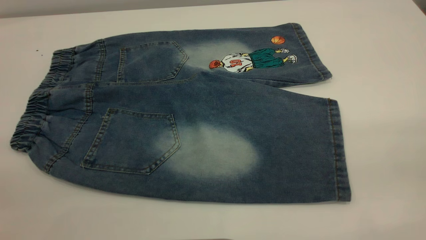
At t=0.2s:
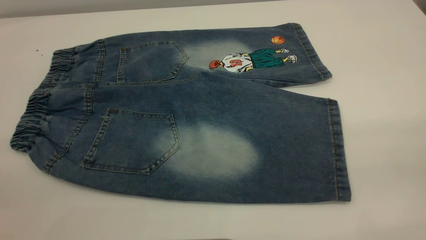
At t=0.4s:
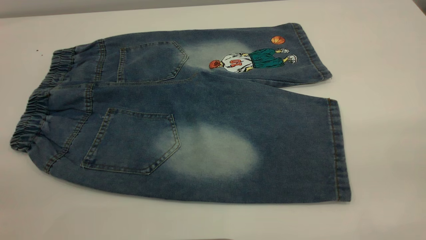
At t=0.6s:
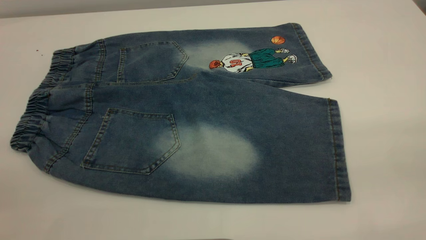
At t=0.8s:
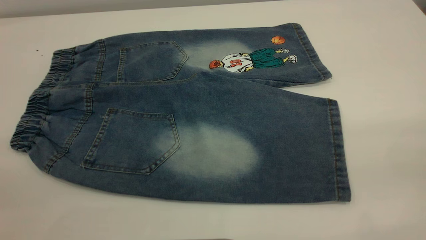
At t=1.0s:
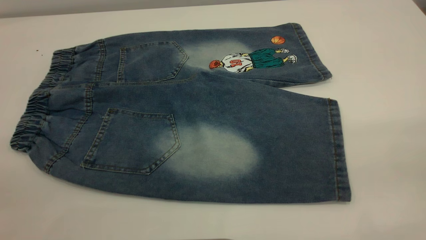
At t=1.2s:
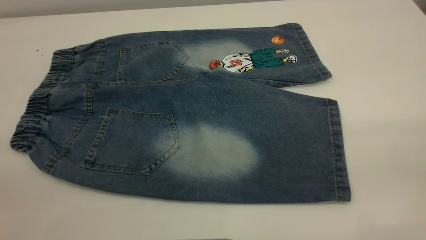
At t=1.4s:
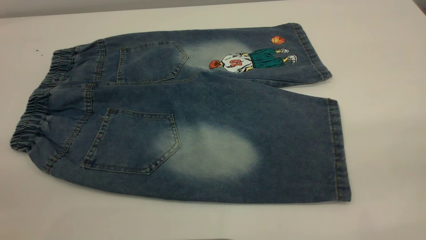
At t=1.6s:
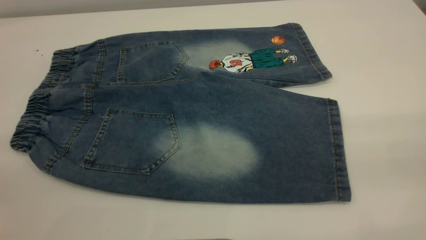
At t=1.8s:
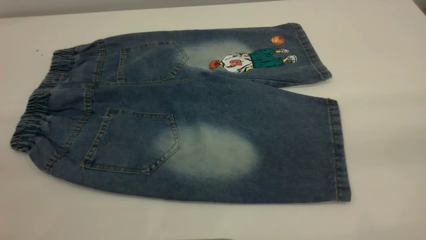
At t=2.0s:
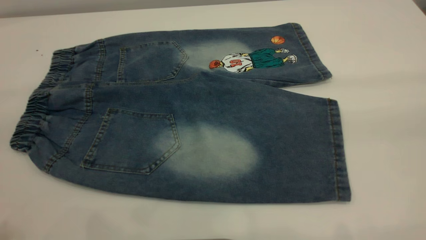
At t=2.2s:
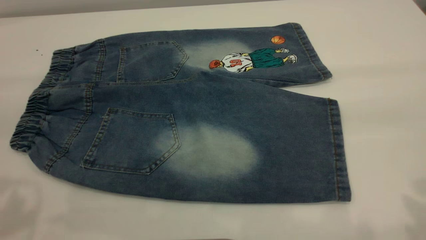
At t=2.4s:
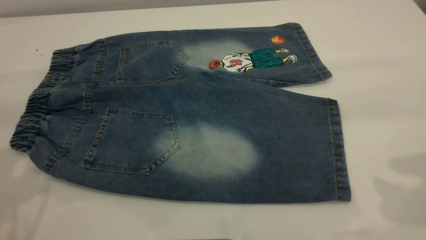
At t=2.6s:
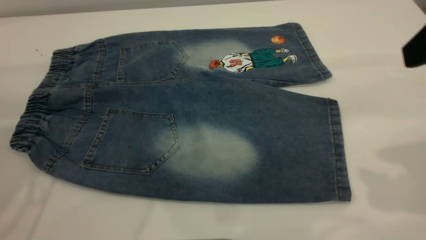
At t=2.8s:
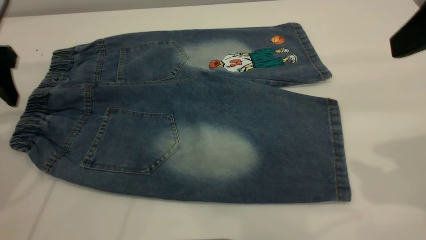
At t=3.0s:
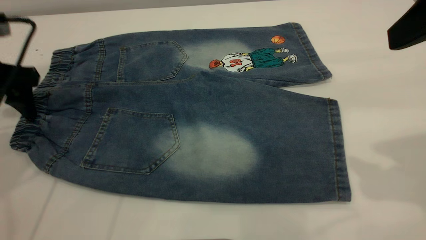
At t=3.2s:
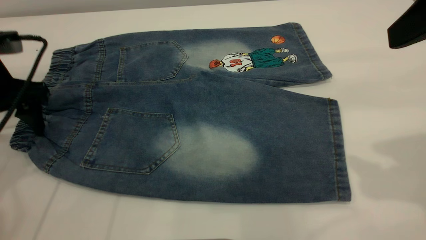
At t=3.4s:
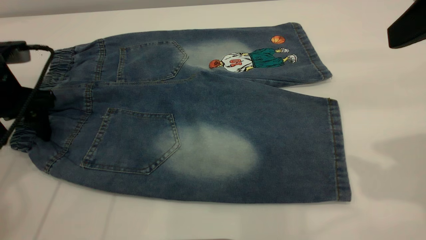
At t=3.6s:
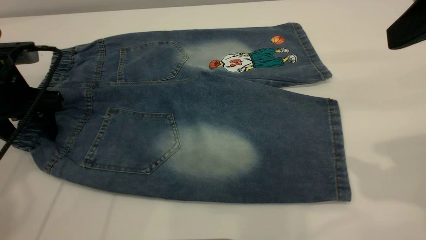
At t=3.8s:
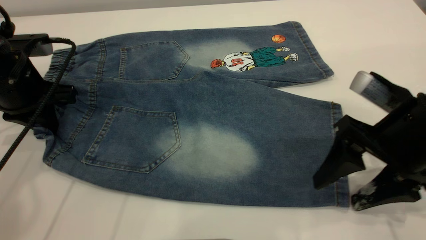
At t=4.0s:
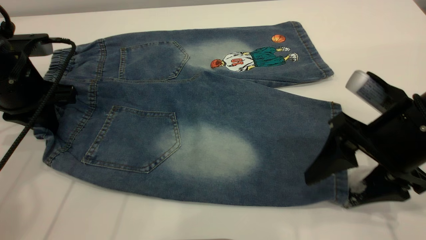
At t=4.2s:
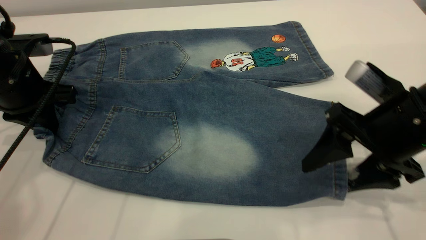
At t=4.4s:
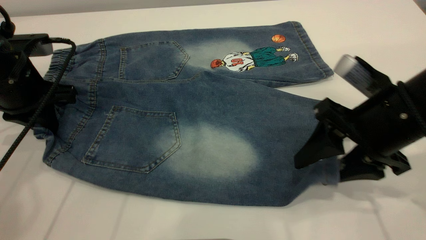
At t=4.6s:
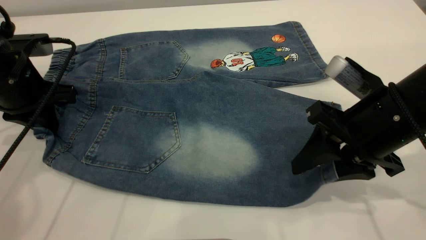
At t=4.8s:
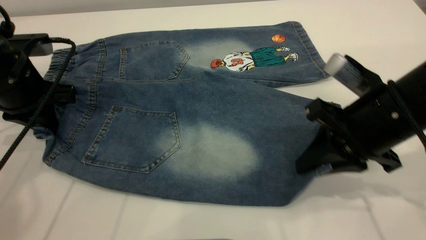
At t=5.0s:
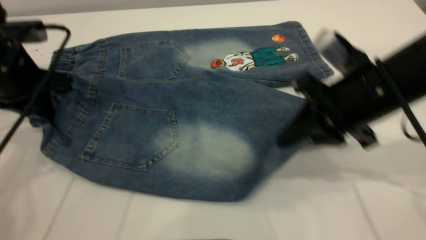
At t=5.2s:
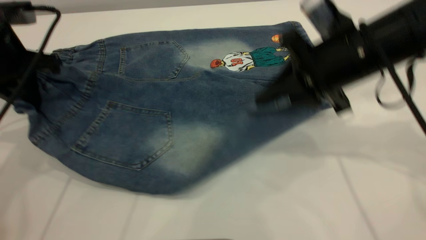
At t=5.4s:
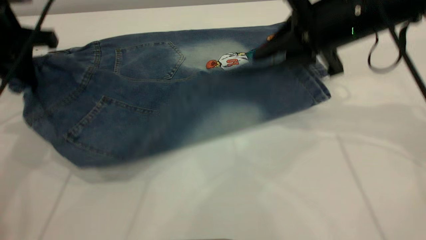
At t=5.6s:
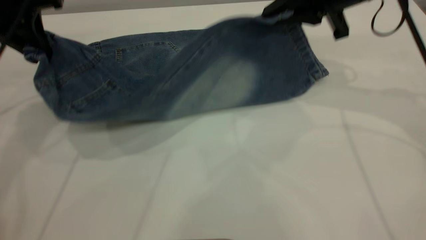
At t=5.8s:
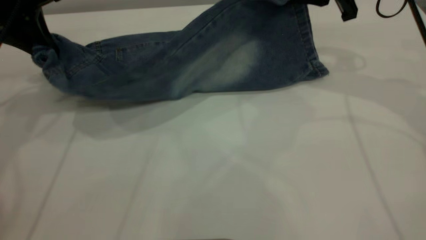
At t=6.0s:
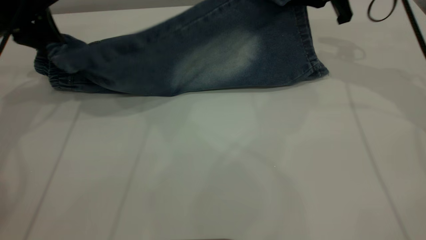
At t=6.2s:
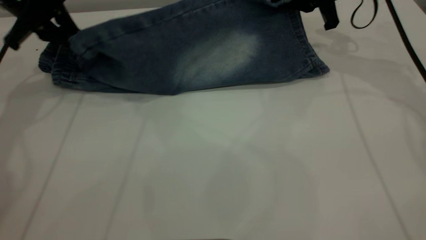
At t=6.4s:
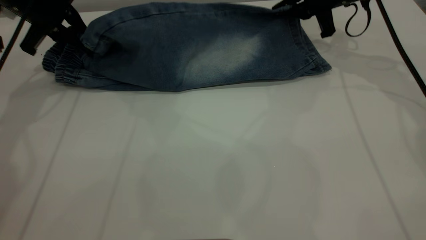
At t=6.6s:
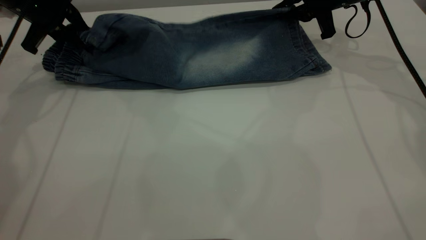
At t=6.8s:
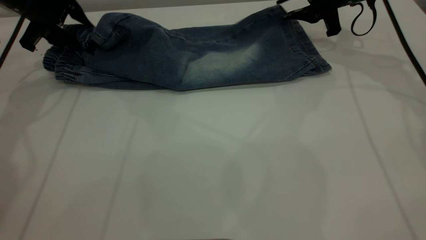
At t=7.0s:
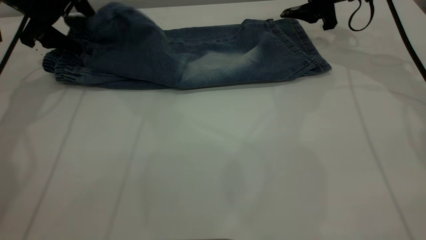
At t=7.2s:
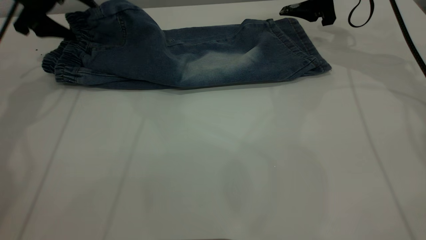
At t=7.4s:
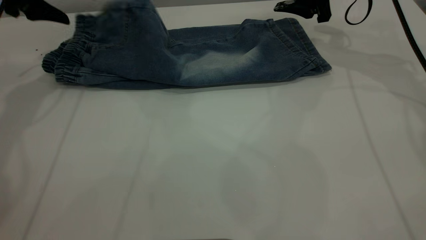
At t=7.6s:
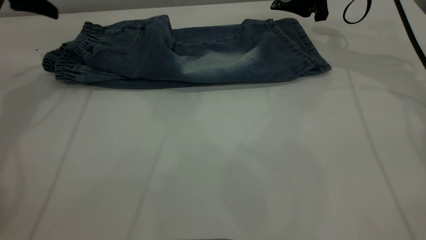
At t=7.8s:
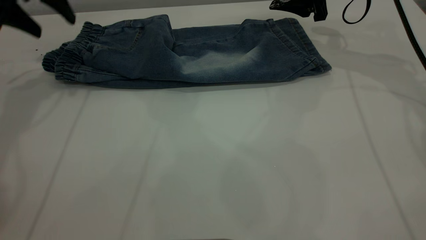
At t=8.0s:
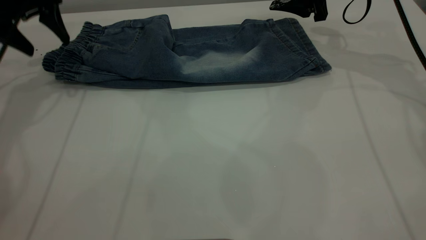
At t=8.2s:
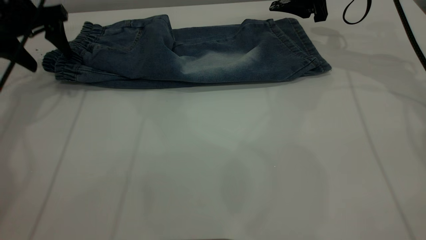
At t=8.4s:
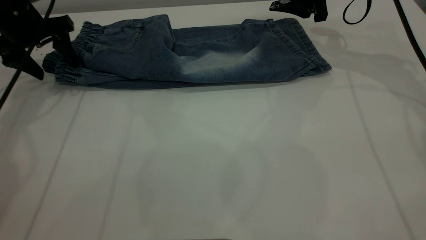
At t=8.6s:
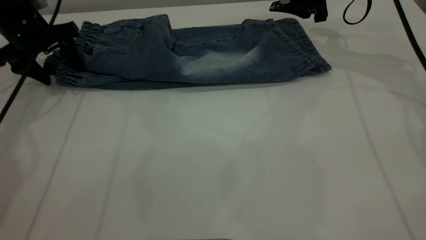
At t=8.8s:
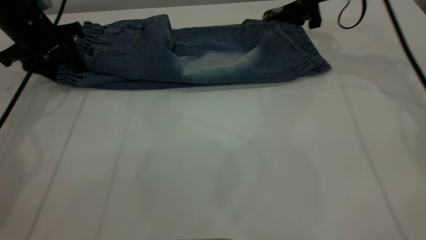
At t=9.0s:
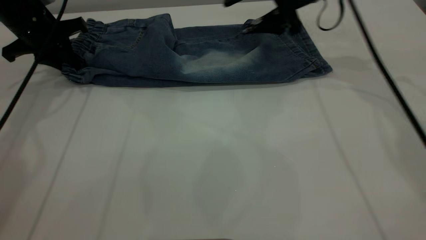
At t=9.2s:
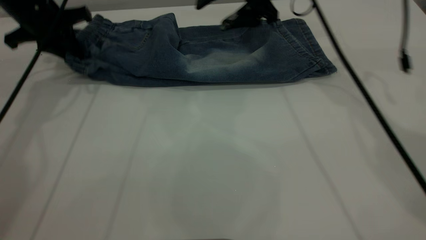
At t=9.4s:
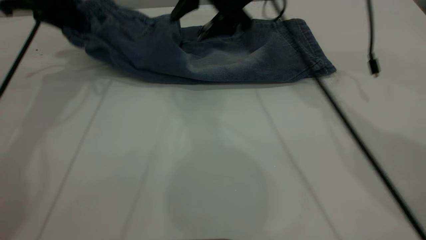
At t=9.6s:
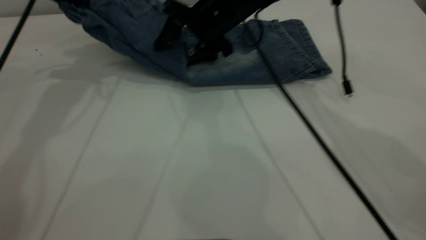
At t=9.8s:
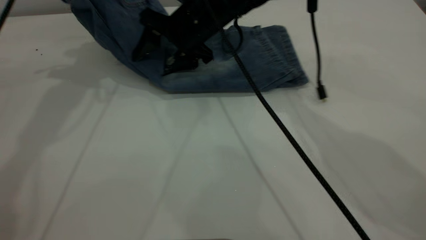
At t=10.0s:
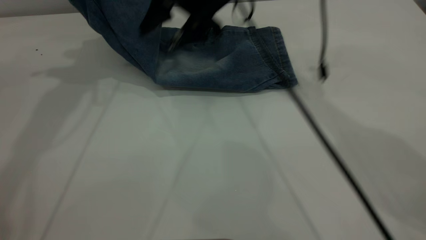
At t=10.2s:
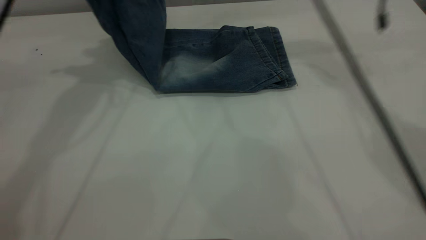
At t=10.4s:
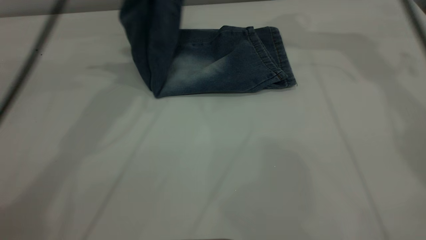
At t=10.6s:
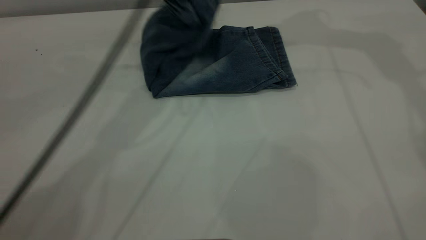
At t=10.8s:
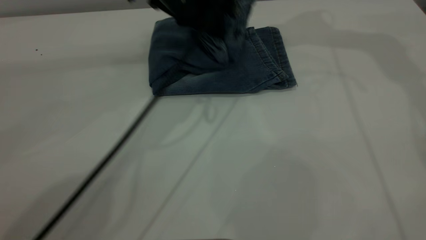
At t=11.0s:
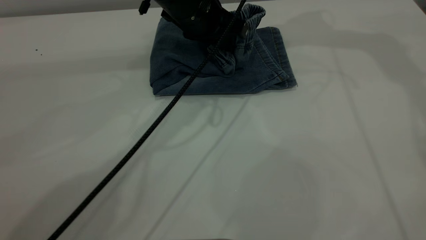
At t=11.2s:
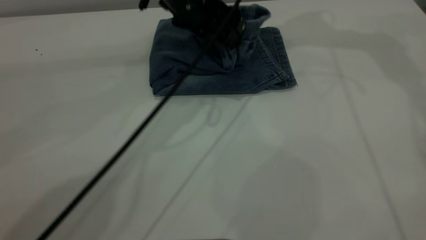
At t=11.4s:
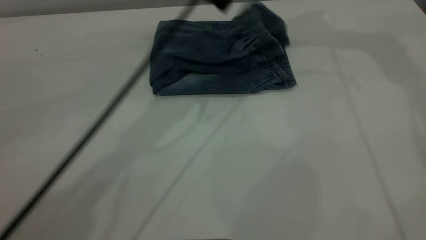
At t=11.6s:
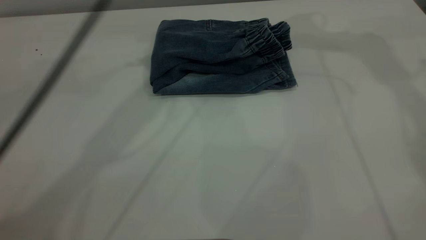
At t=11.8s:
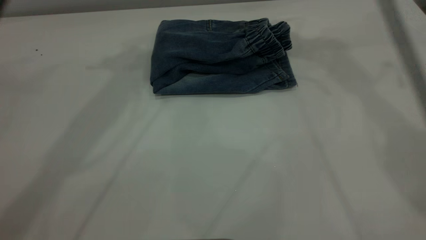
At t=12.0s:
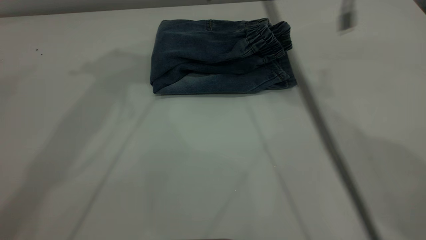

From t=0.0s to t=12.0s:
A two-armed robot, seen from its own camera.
Step, from t=0.0s to t=7.8s: Fold the bottom of the pants upward.
Step, from t=8.0s to t=11.6s: Fold the pants from left to right.
From t=0.0s to t=1.6s: Neither gripper changes place.
From t=1.6s to t=3.0s: The right gripper is displaced forward by roughly 20 cm, while the left gripper shifts some 35 cm forward and downward.
From t=3.0s to t=4.4s: The left gripper closes.
From t=4.4s to t=6.0s: The left gripper is displaced forward and upward by approximately 10 cm; the right gripper shifts about 20 cm forward, and closes.
From t=6.0s to t=7.6s: The left gripper opens up, while the right gripper opens up.
From t=7.6s to t=9.0s: The right gripper travels to the left by about 10 cm. Meanwhile the left gripper moves downward, some 10 cm, and closes its fingers.
From t=9.0s to t=10.4s: The left gripper is displaced to the right and upward by approximately 20 cm. Meanwhile the right gripper moves upward, approximately 15 cm.
From t=10.4s to t=12.0s: The left gripper shifts about 10 cm upward, and opens. Meanwhile the right gripper shifts roughly 15 cm to the left and downward.

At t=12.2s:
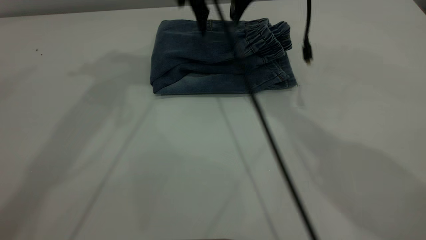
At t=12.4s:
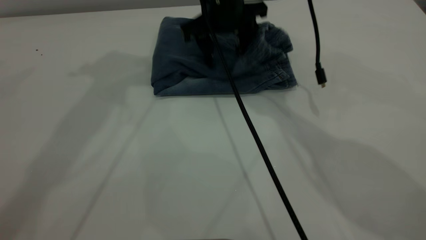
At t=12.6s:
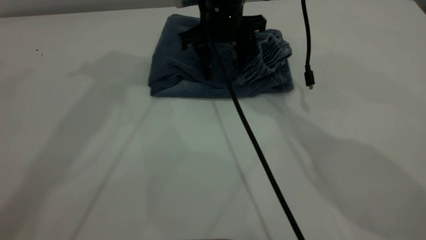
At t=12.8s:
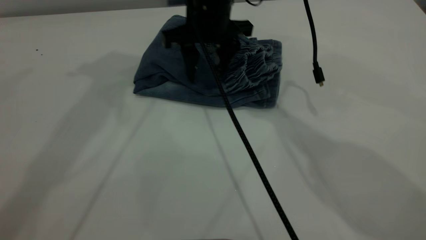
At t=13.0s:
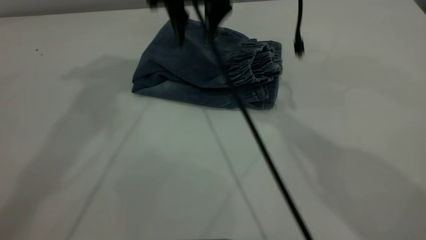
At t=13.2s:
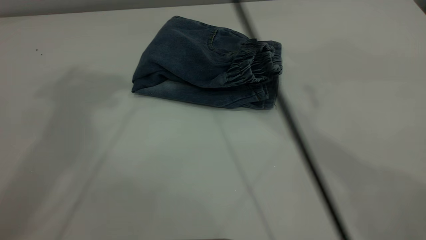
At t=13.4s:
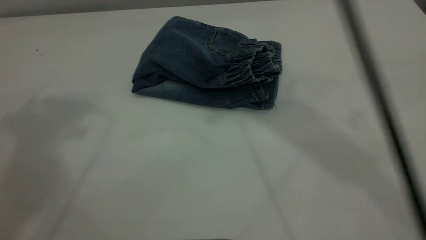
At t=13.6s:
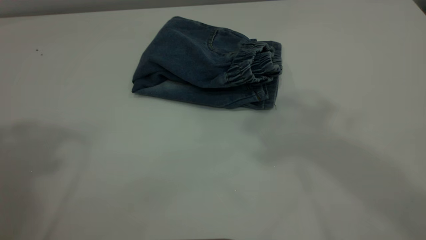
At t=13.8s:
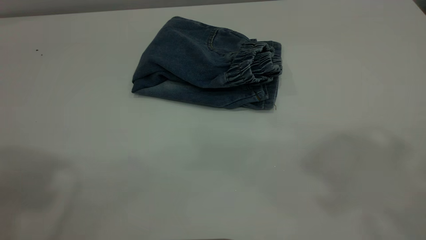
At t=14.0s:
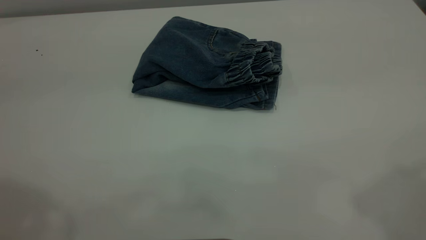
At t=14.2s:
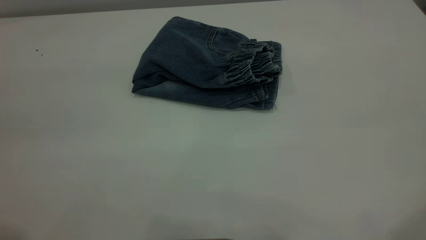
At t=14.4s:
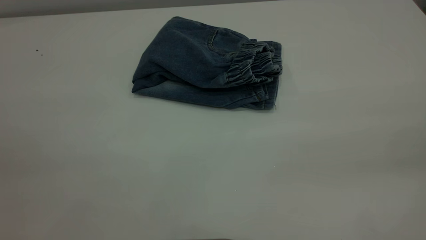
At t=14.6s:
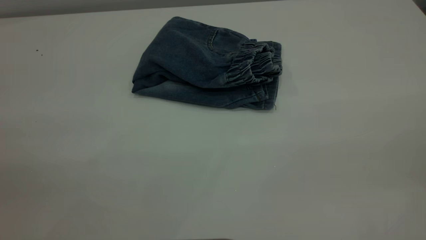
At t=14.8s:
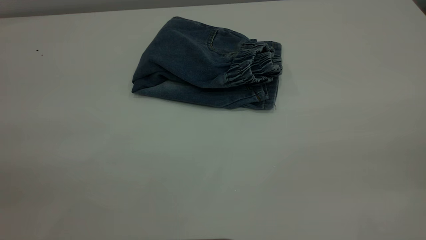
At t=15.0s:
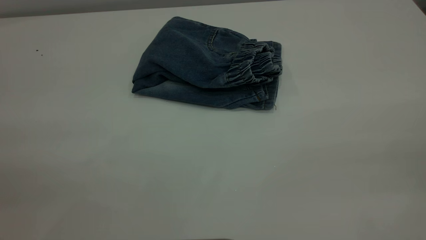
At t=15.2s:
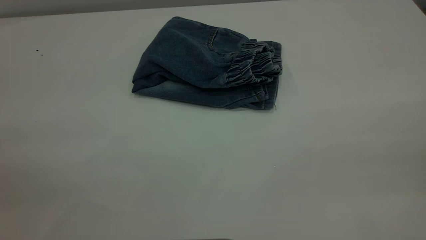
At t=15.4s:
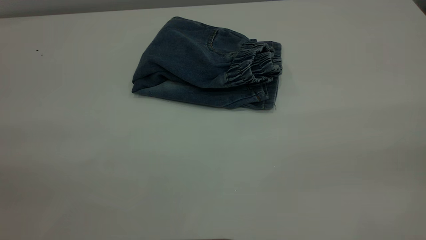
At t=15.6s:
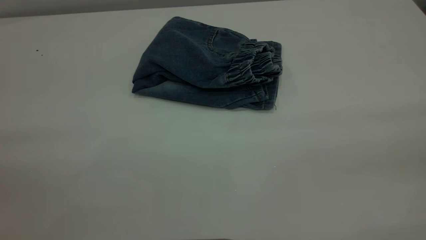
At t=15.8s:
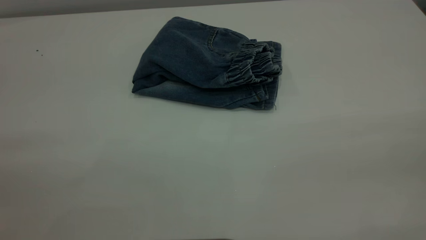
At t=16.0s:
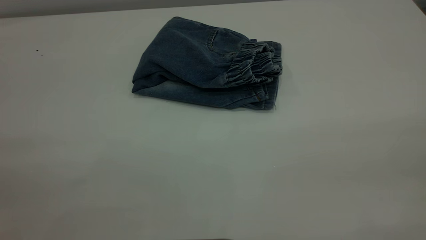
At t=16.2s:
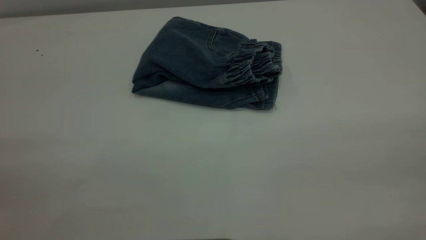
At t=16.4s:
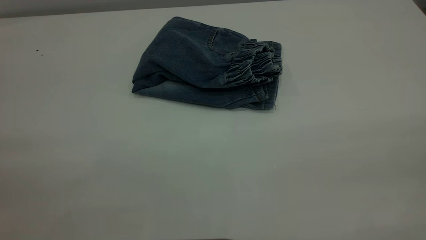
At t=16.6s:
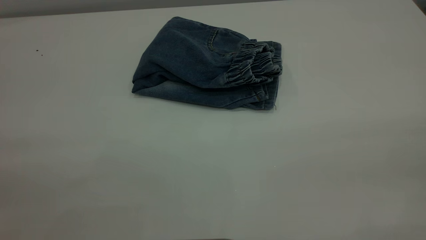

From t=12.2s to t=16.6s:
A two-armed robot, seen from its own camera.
From t=12.2s to t=13.6s: The left gripper heads backward, upward and to the left, covering approximately 20 cm. Meanwhile the right gripper goes about 40 cm upward and backward.
